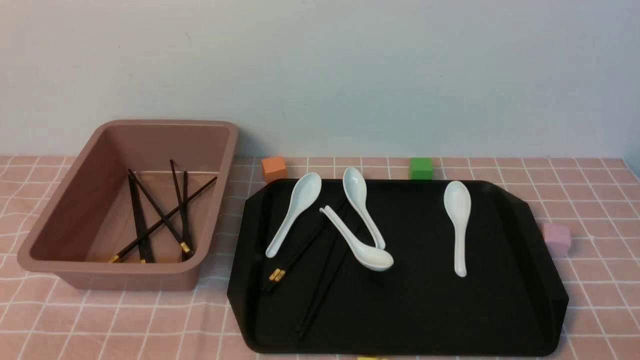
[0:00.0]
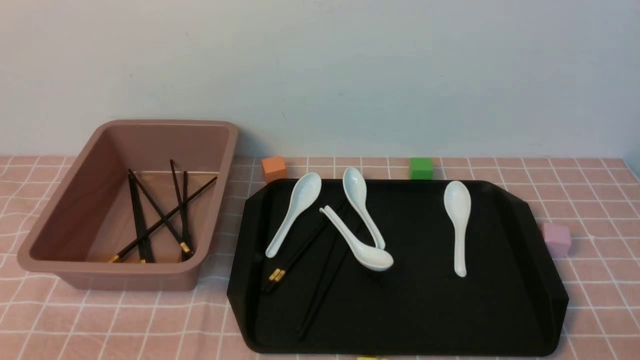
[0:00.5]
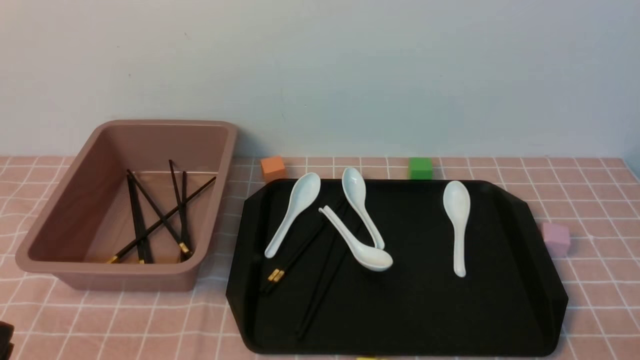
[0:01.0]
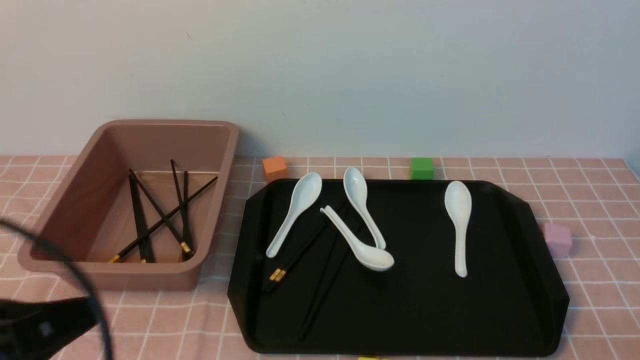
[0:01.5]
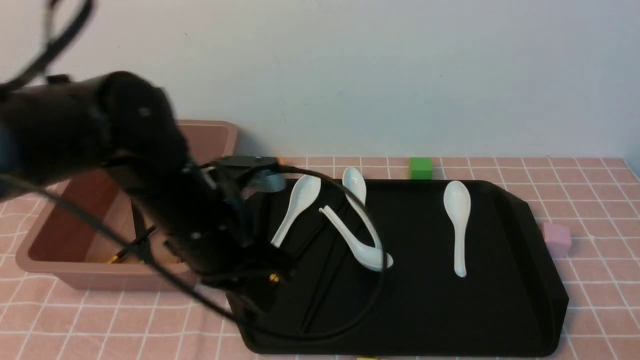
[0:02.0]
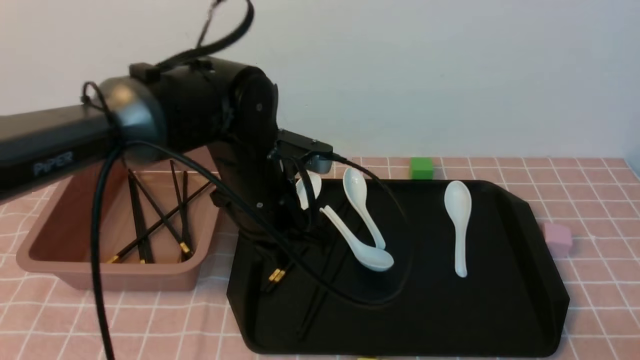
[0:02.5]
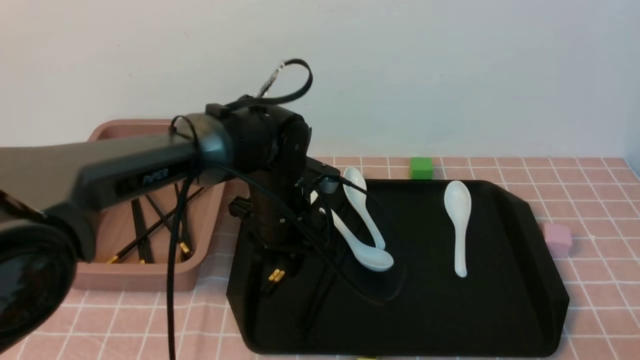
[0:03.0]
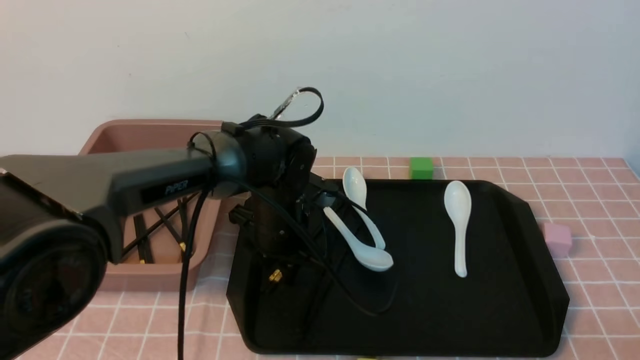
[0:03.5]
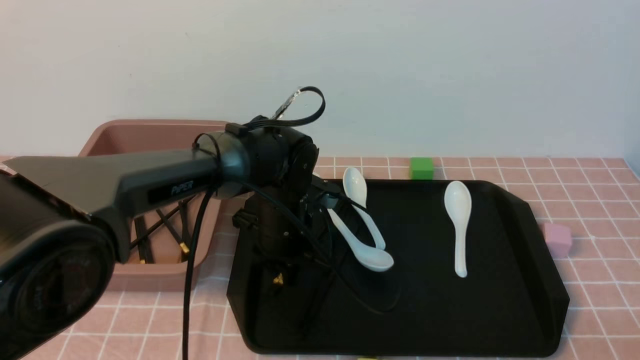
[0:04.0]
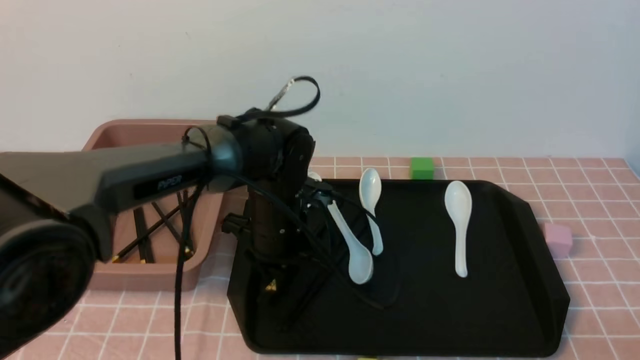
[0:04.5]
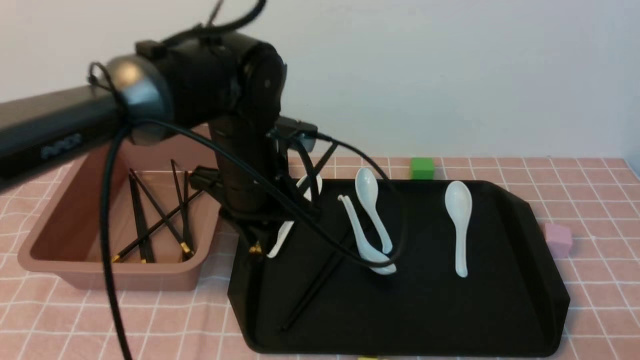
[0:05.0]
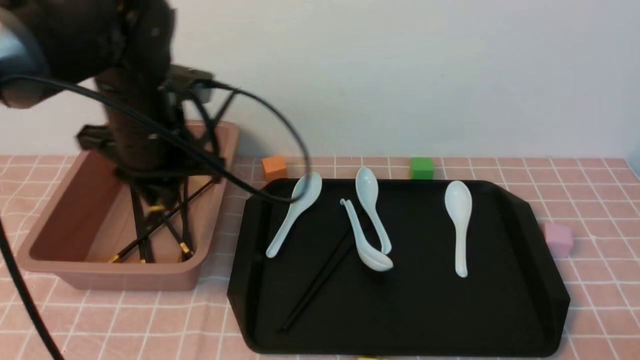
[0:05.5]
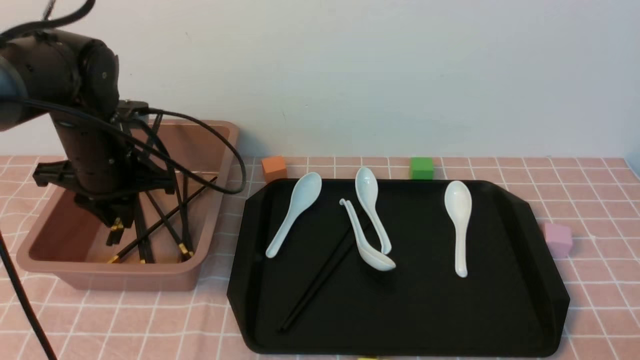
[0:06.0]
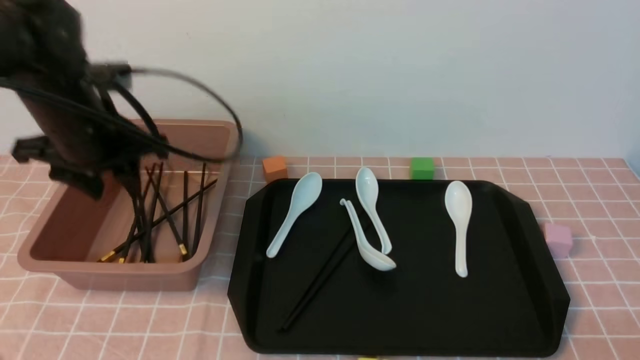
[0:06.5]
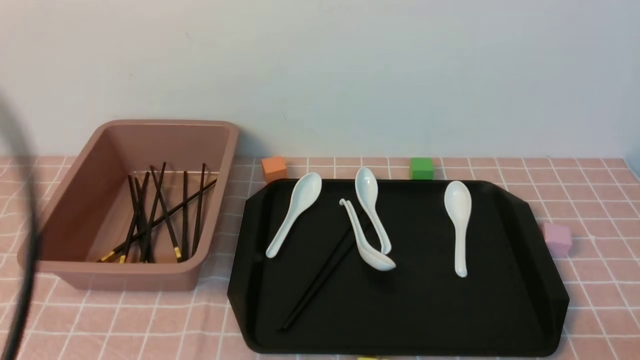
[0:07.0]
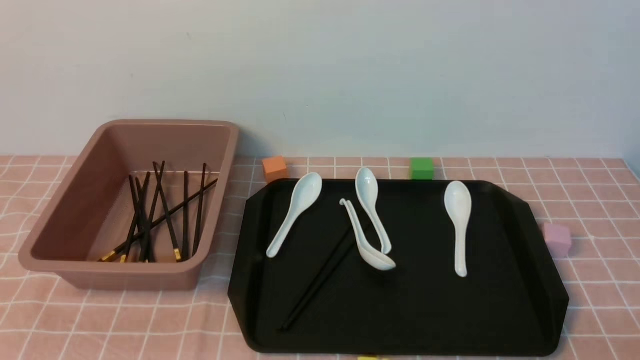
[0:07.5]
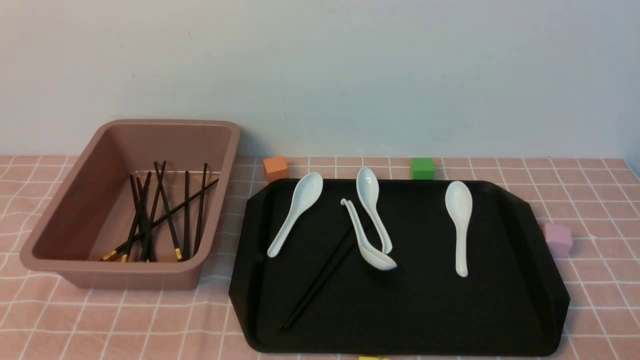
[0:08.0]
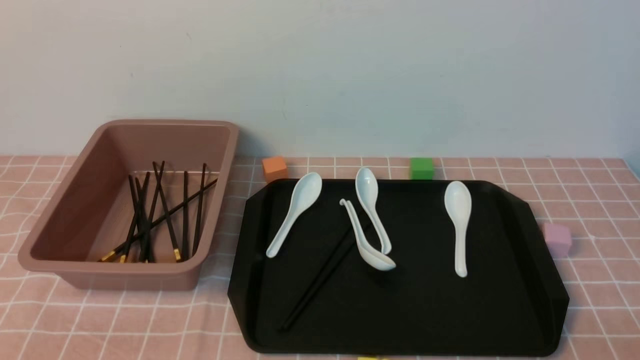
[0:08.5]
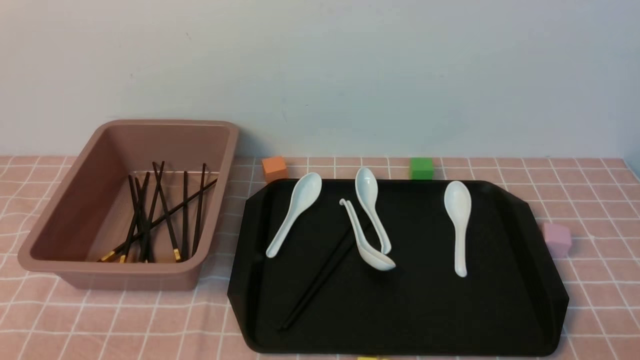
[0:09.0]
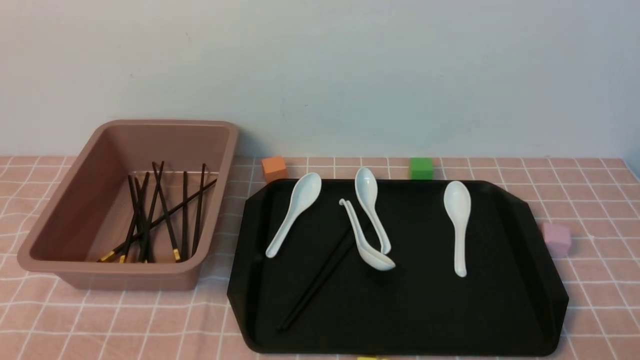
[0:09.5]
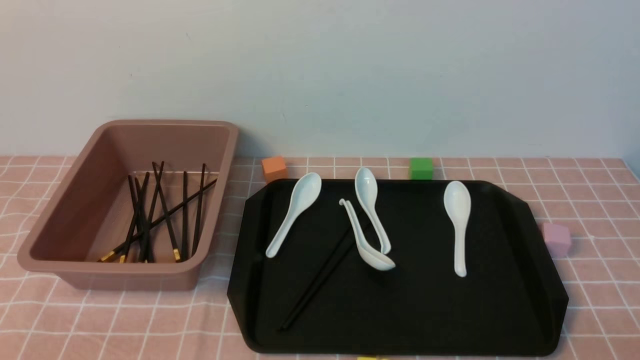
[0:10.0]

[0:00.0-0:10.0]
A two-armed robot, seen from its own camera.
Step, 0:00.0 to 0:04.5: use the left arm to grab a pair of chopsticks.
Step, 0:05.0 to 0:06.5: use the left arm to put the chopsticks into the lunch box.
0:00.0 to 0:02.0: The left gripper moves forward, to the right and upward, approximately 30 cm, and closes up.
0:02.0 to 0:04.0: The right gripper opens. The left gripper travels downward, forward and to the right by some 15 cm, and opens up.
0:04.0 to 0:06.0: The left gripper moves to the left and upward, about 20 cm.
0:06.0 to 0:08.0: The left gripper moves backward, roughly 35 cm, and closes up.
0:08.0 to 0:10.0: The left gripper goes about 5 cm downward.
